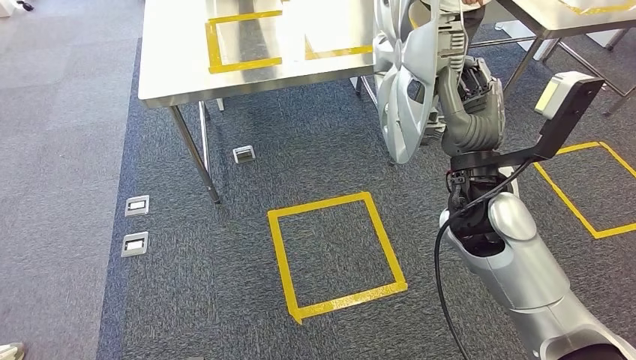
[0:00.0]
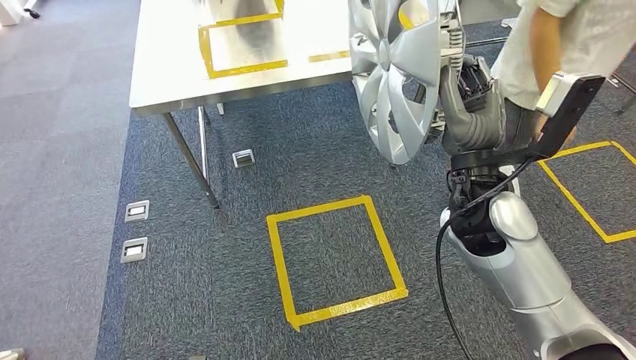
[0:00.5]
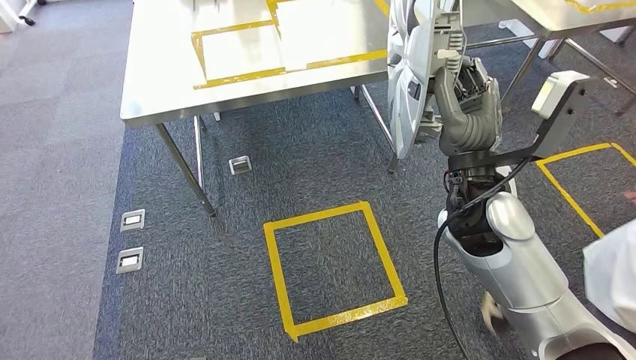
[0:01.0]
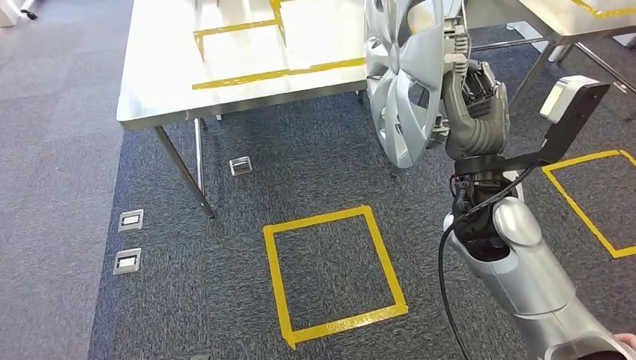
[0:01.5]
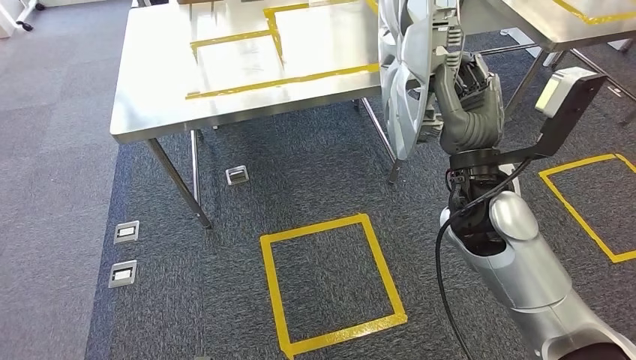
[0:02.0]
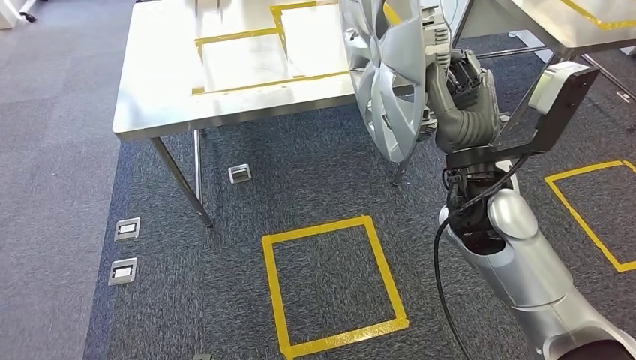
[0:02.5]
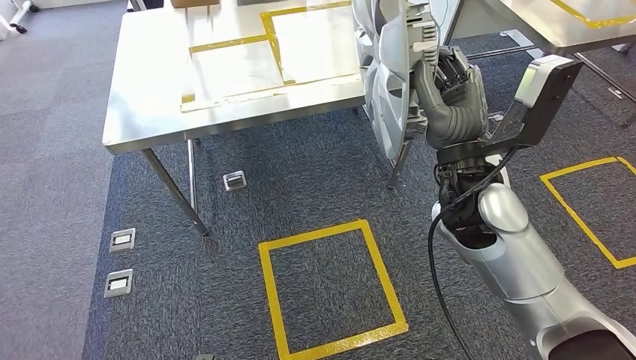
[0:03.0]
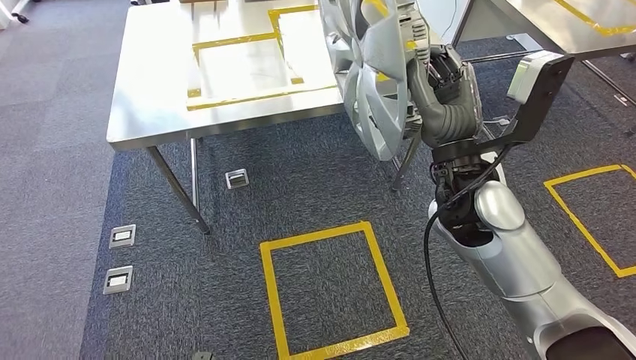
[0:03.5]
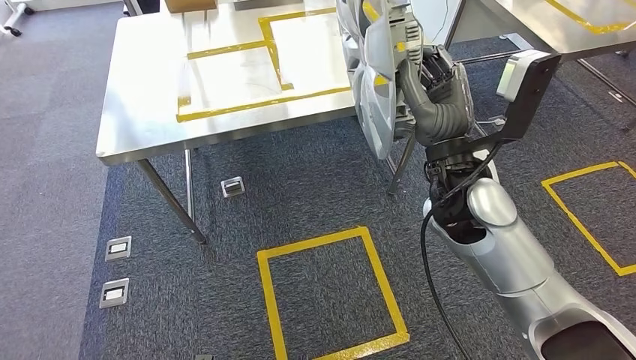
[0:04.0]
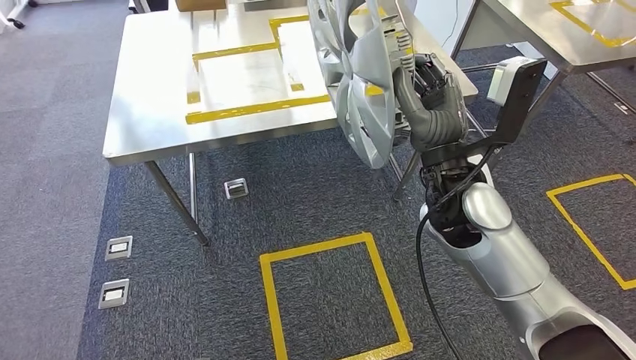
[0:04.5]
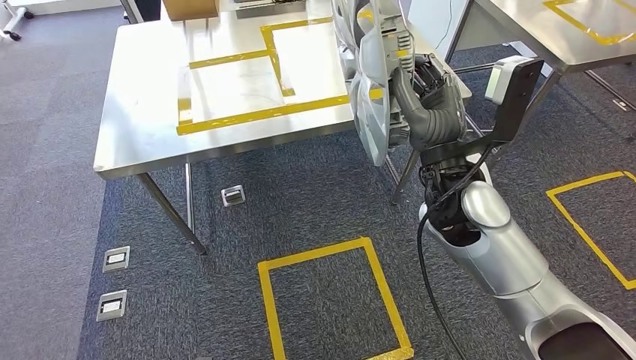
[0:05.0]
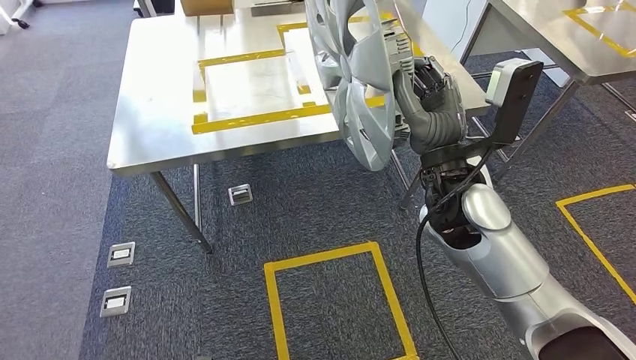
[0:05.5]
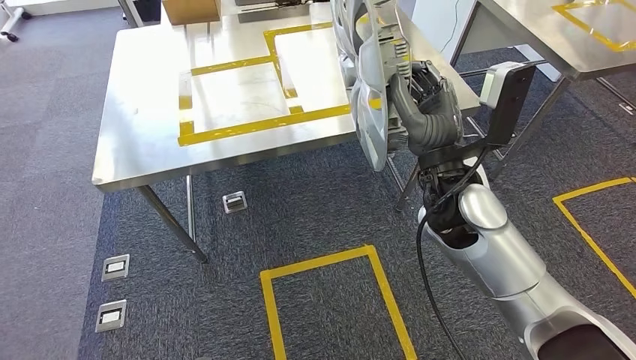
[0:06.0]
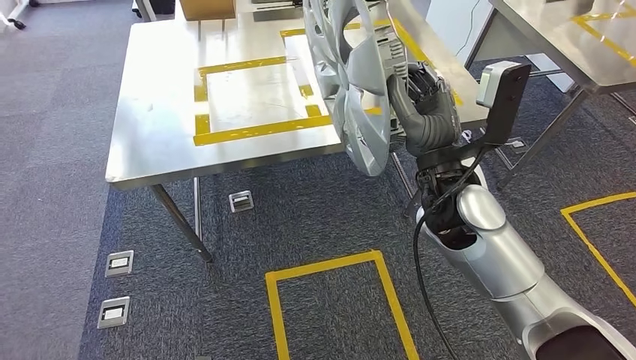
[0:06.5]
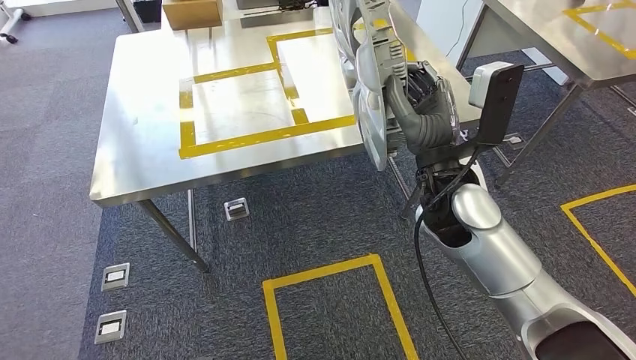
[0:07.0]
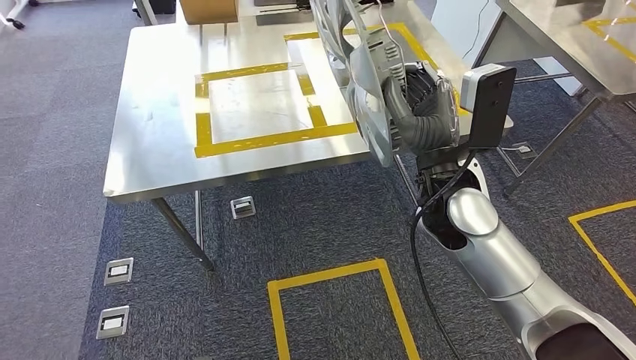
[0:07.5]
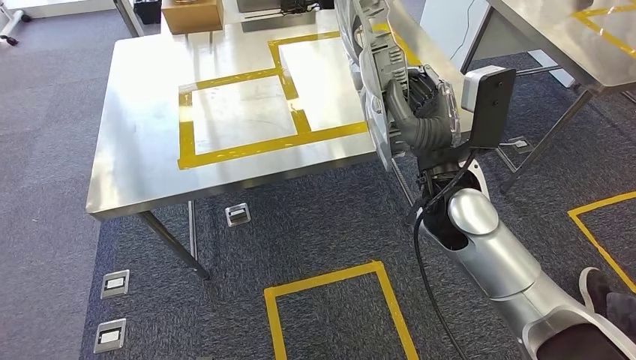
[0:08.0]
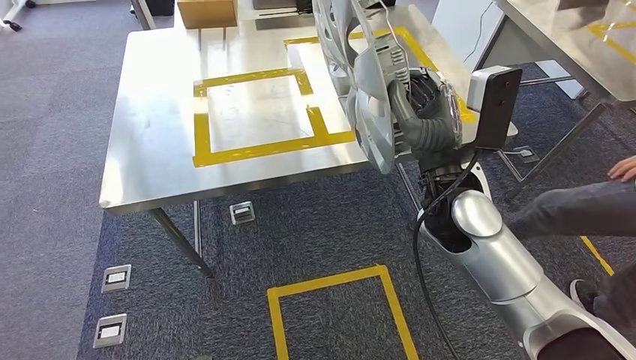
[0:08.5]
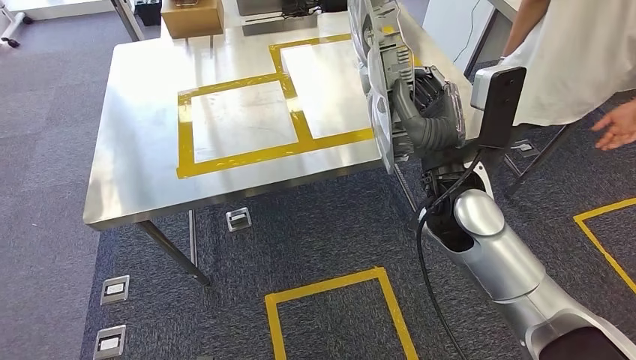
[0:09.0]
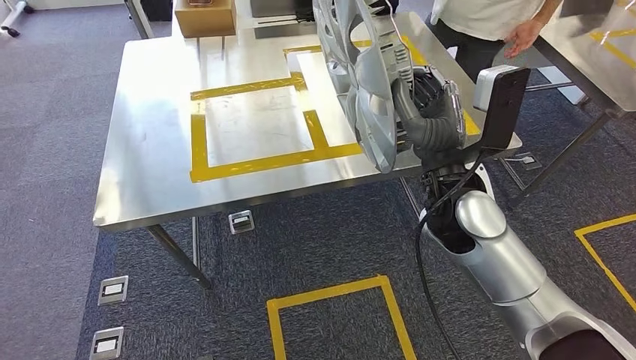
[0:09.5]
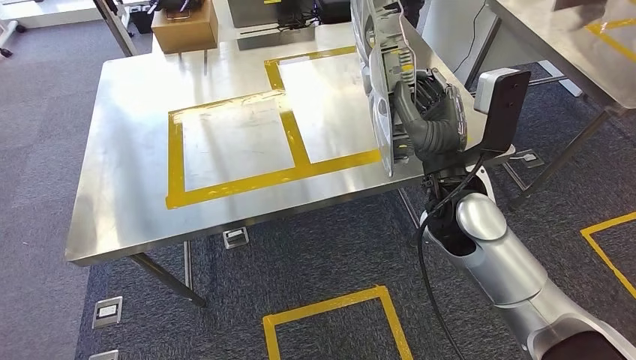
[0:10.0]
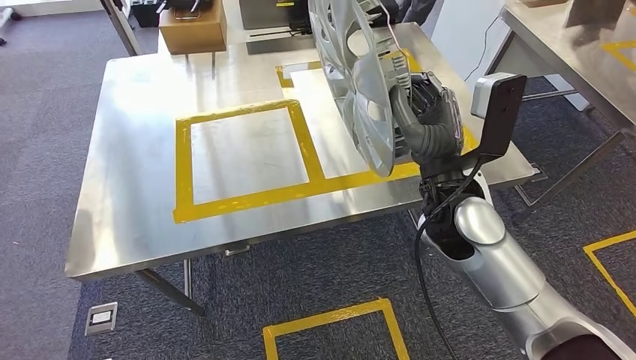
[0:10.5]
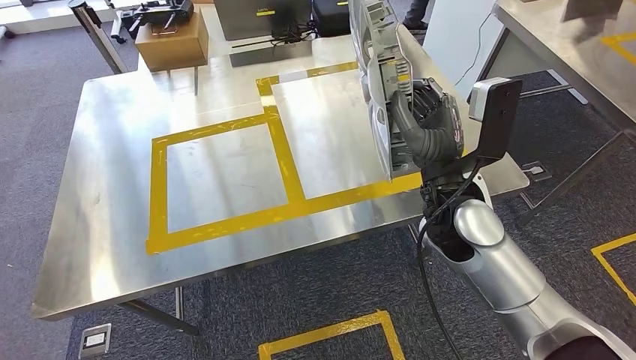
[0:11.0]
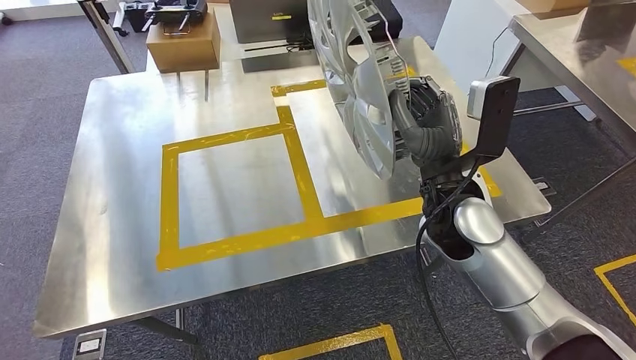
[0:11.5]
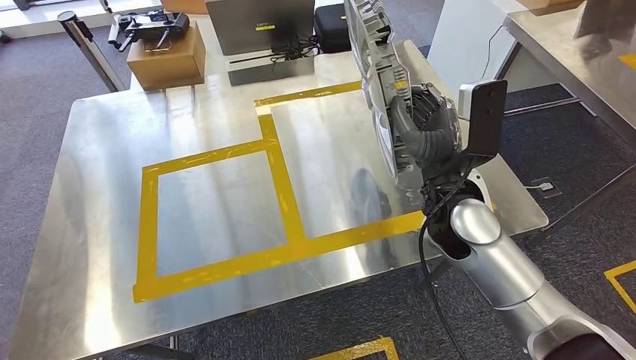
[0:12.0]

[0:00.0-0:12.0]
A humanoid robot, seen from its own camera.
Step, 0:00.0 to 0:04.5: Move the large material to the workbench.

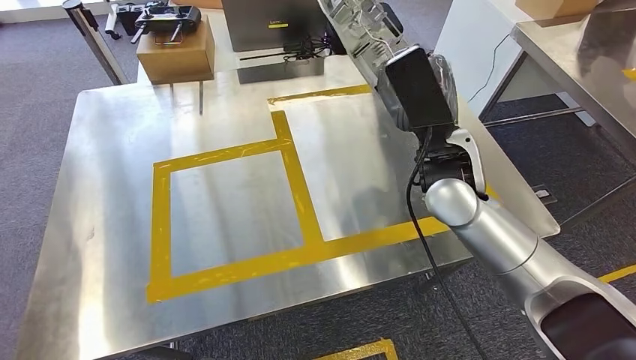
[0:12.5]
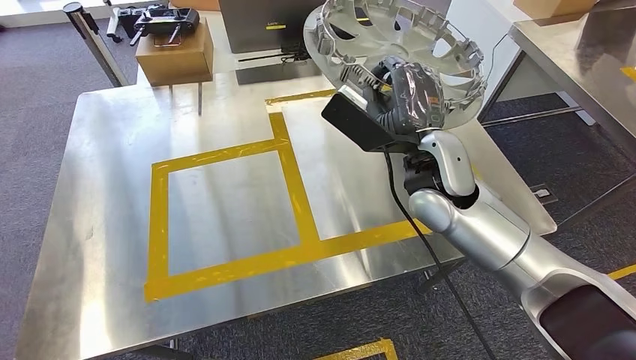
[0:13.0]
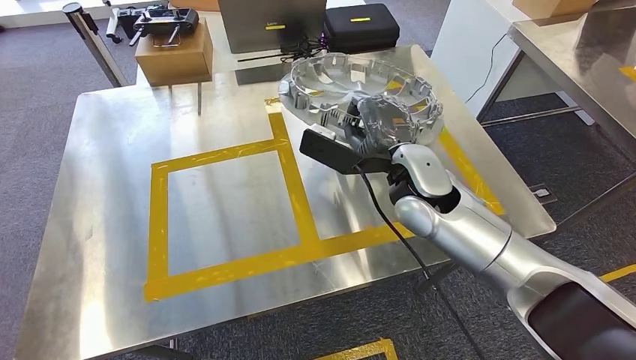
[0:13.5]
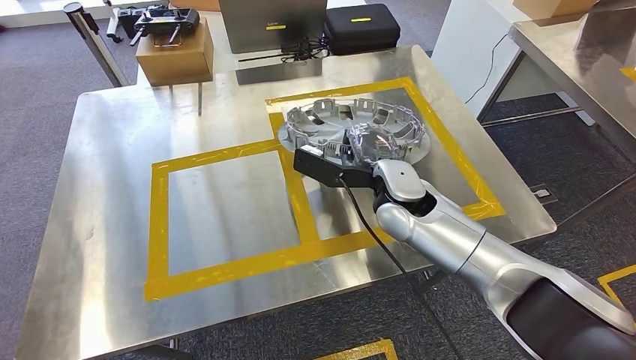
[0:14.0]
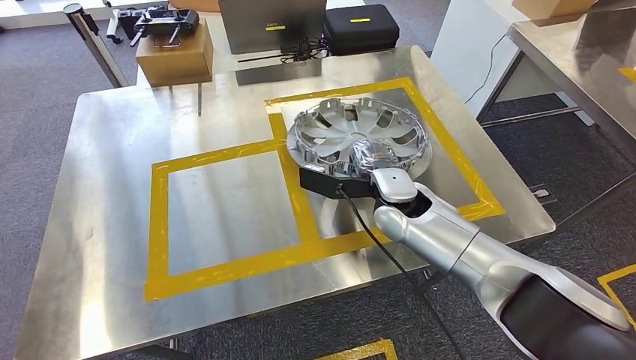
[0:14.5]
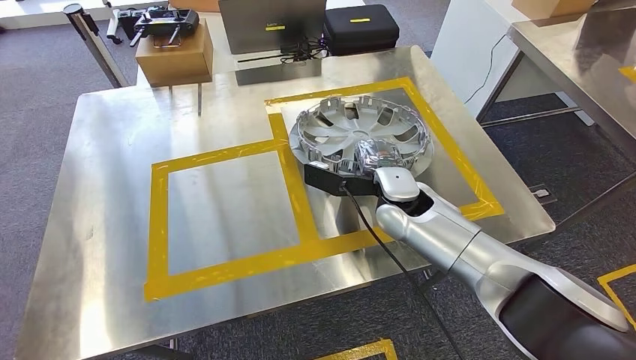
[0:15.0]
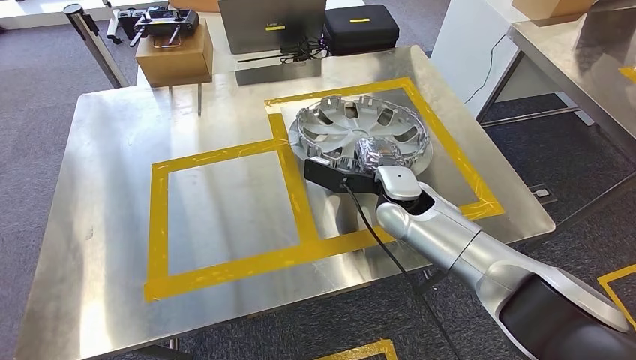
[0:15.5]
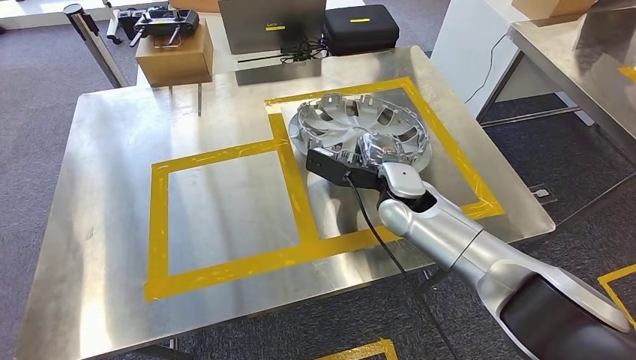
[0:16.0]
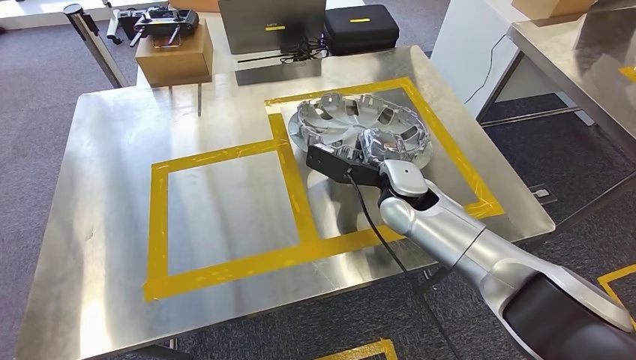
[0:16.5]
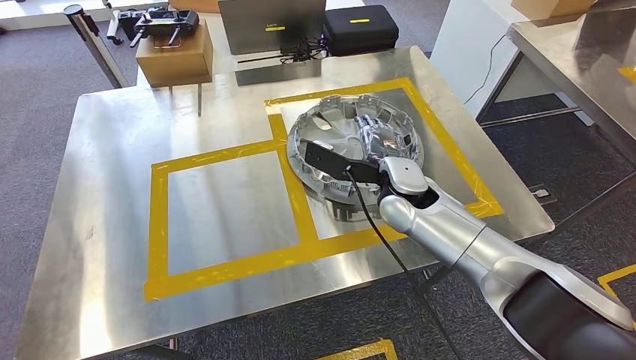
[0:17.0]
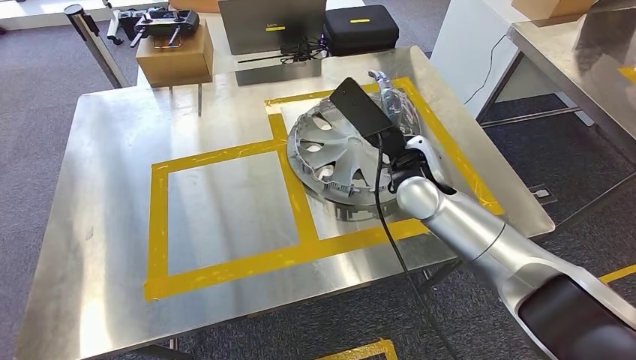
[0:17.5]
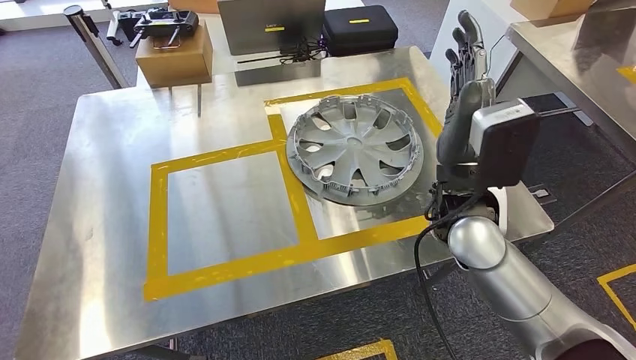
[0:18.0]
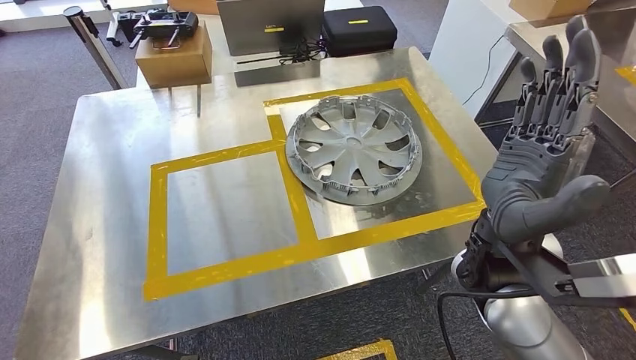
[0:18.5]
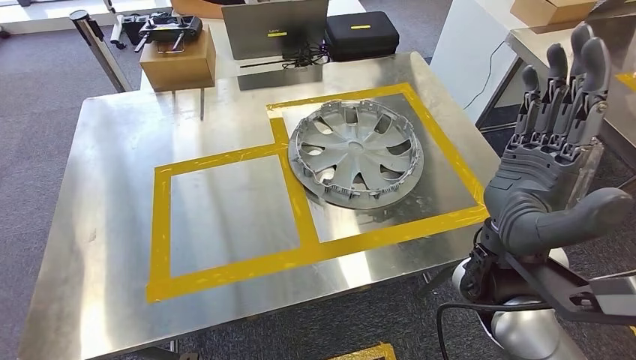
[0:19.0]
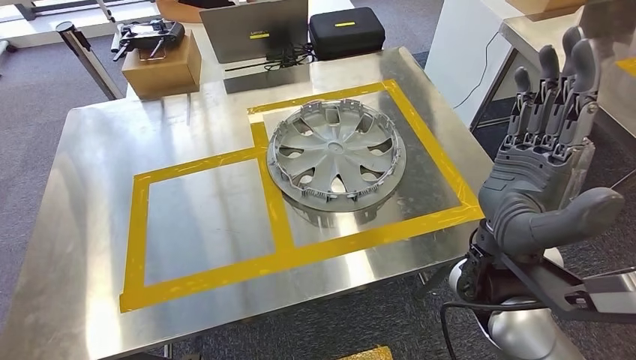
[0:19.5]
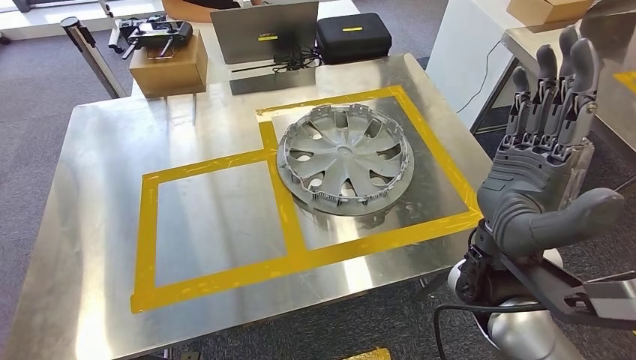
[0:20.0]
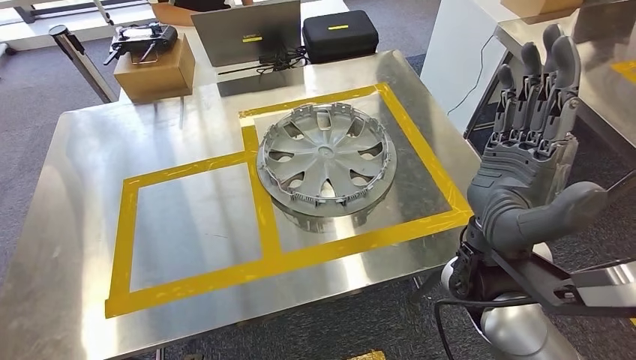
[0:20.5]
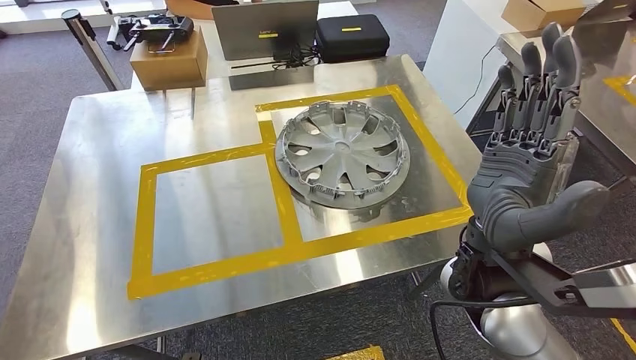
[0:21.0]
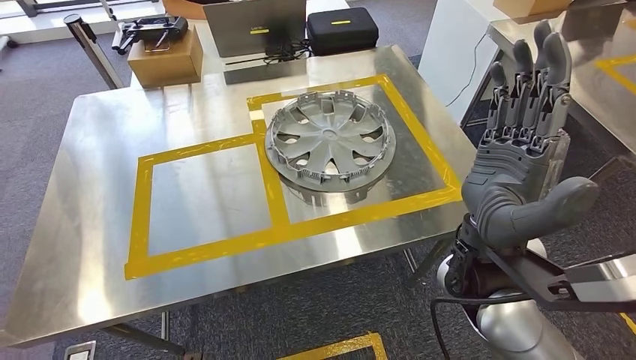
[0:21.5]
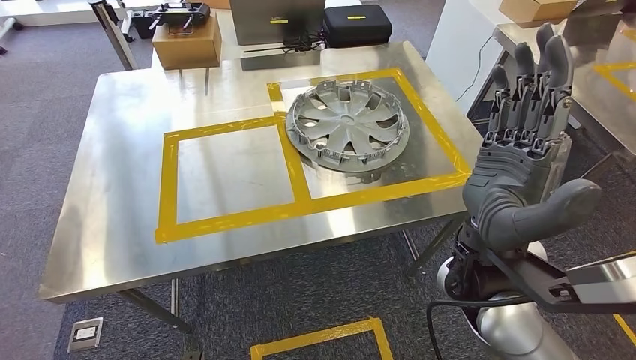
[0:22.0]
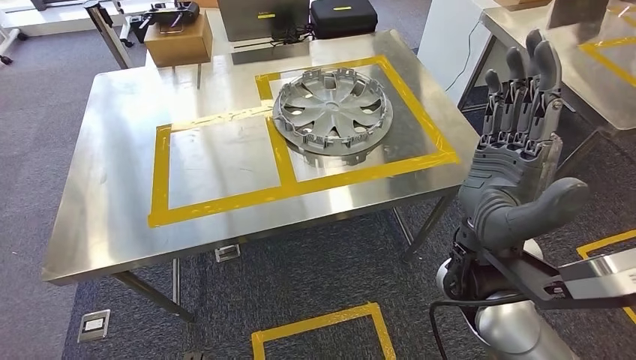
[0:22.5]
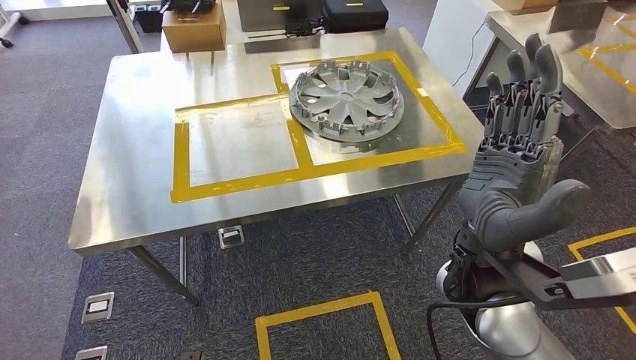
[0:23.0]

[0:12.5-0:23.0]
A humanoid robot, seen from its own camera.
Step, 0:12.5 to 0:18.0: Insert the large material into the corresponding slot on the workbench.
0:14.5 to 0:16.5: There are only small adjustments of the hands.
